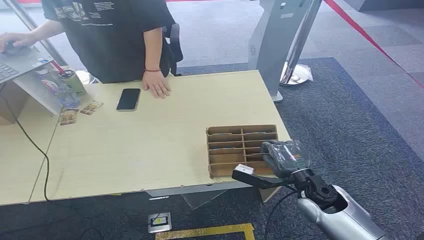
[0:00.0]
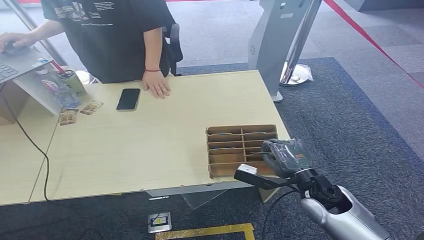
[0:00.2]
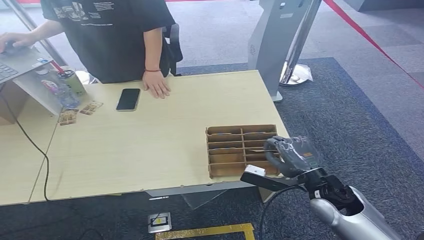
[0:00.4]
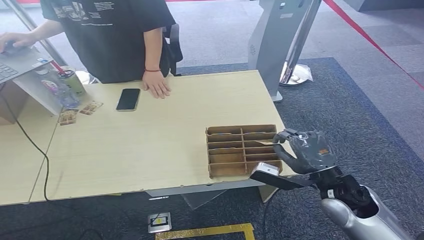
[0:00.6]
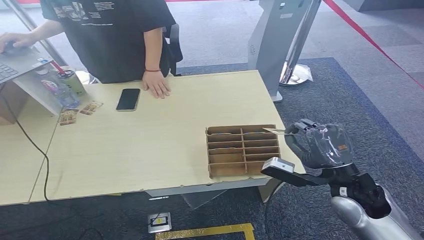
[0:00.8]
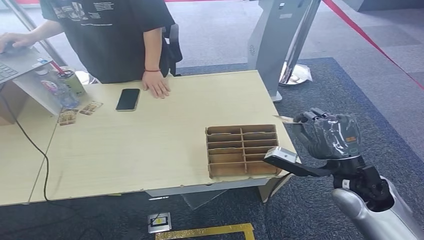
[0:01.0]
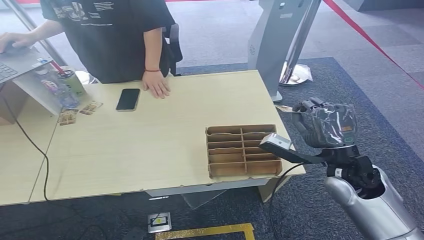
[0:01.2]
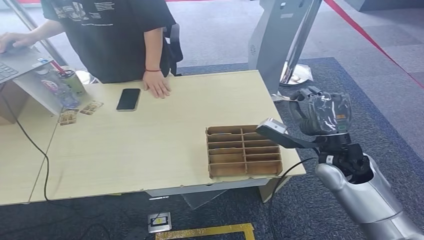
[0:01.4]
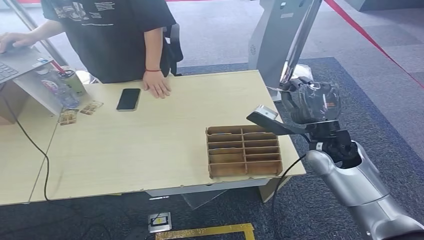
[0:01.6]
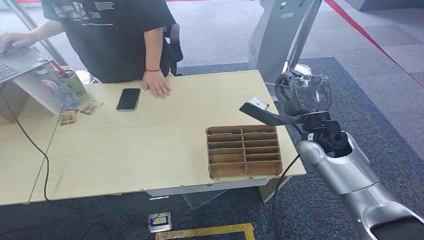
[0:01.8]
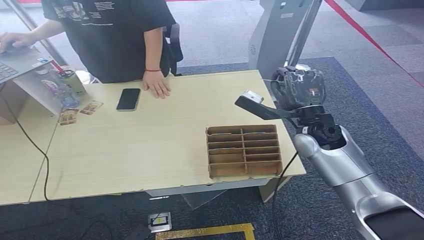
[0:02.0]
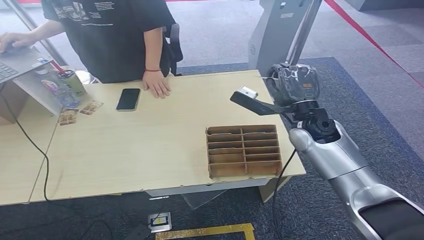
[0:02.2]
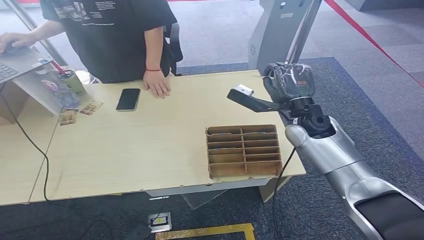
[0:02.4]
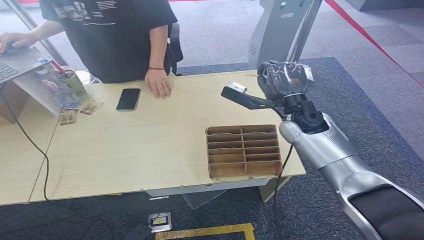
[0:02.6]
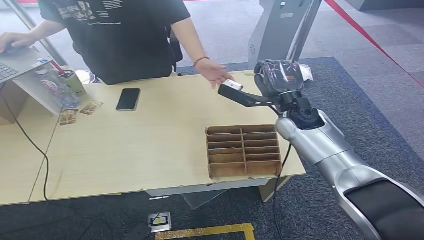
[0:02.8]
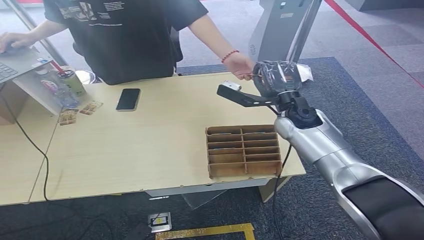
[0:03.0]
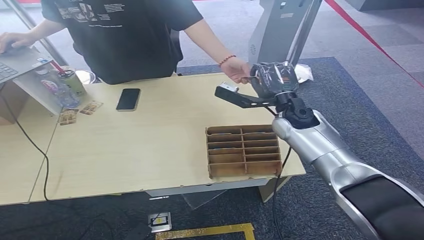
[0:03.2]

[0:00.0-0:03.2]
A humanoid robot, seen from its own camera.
Task of the whole recording: Pick up the card and hand it over to the target person.
Step, 0:00.0 to 0:00.8: Pick up the key card from the card box.
Step, 0:01.2 to 0:03.2: Hand the key card to the target.
0:01.6 to 0:03.2: The right hand is displaced forward by approximately 5 cm.
